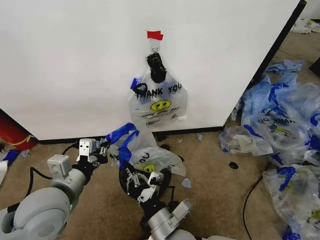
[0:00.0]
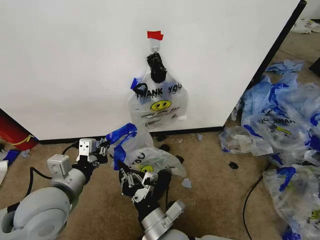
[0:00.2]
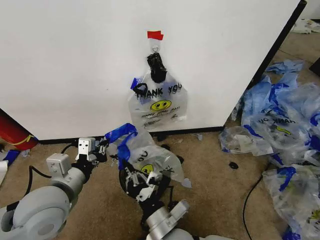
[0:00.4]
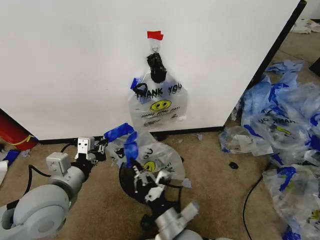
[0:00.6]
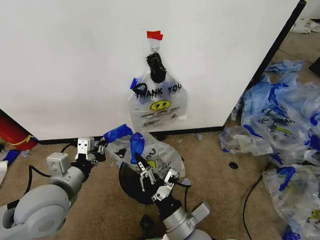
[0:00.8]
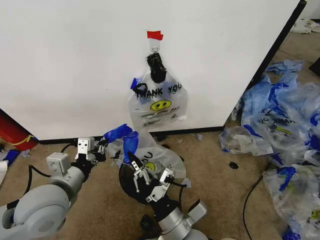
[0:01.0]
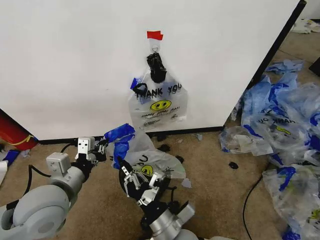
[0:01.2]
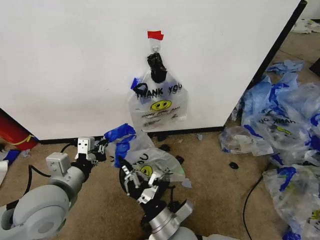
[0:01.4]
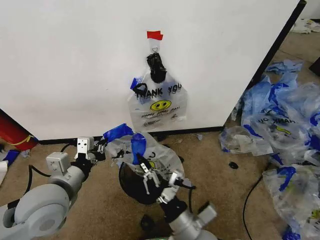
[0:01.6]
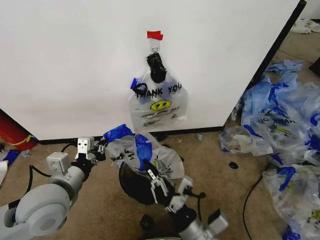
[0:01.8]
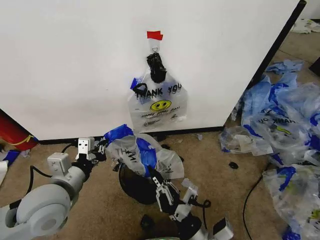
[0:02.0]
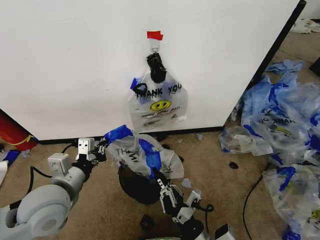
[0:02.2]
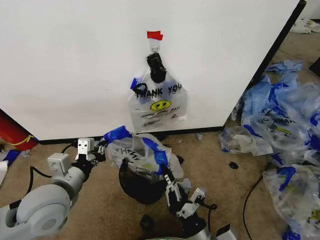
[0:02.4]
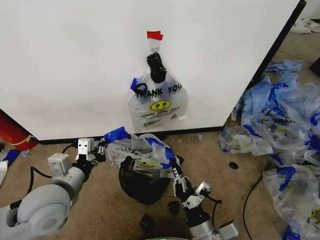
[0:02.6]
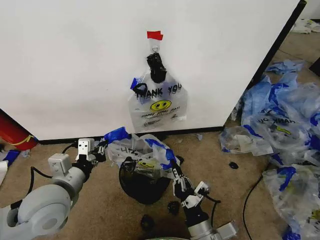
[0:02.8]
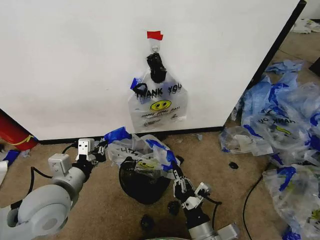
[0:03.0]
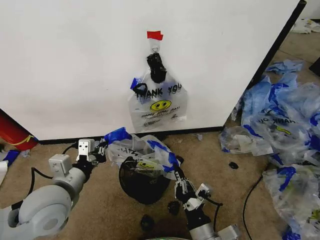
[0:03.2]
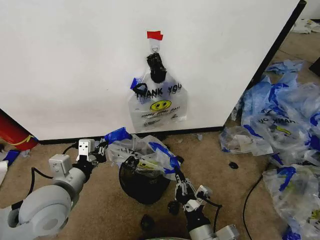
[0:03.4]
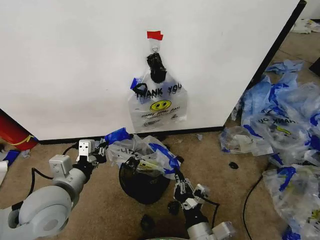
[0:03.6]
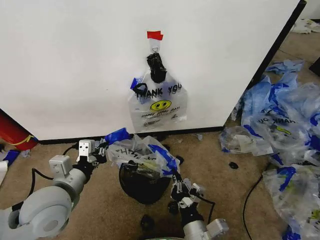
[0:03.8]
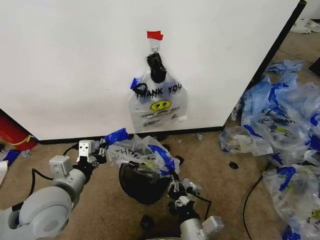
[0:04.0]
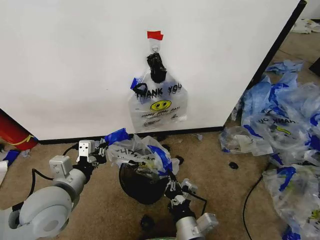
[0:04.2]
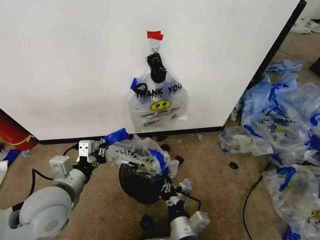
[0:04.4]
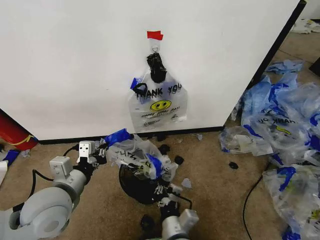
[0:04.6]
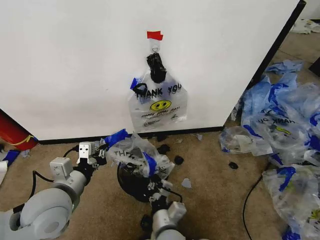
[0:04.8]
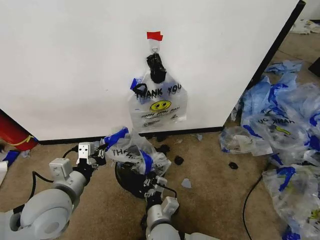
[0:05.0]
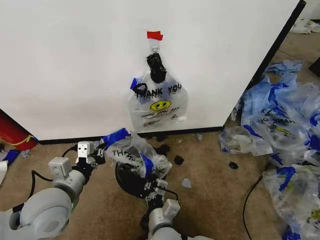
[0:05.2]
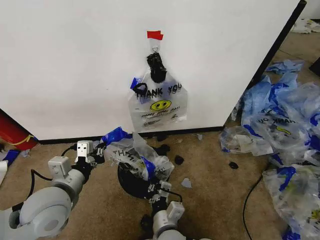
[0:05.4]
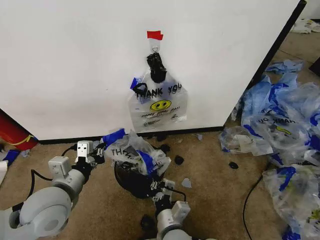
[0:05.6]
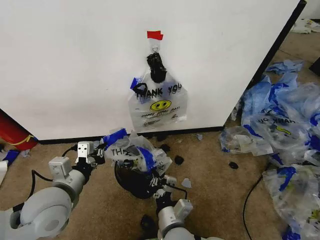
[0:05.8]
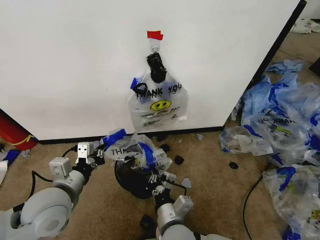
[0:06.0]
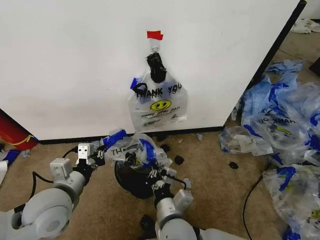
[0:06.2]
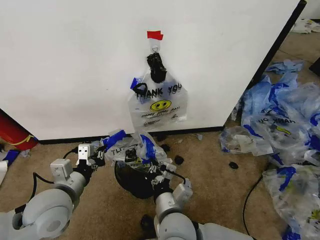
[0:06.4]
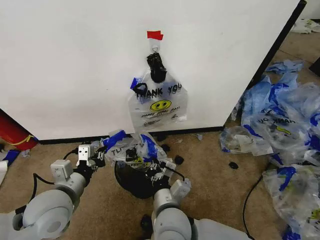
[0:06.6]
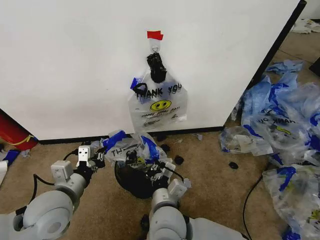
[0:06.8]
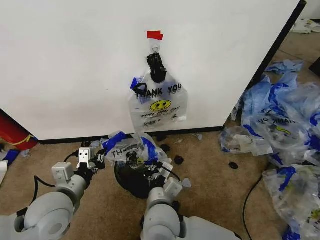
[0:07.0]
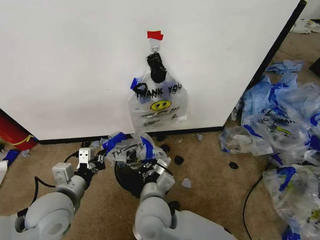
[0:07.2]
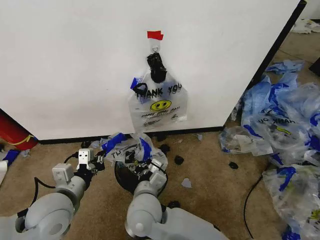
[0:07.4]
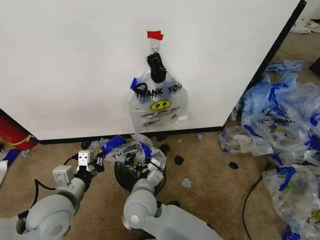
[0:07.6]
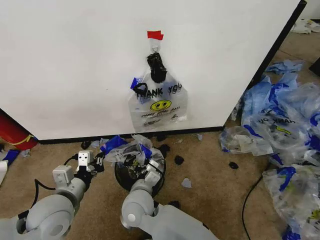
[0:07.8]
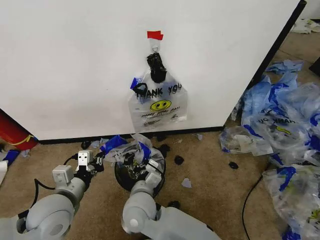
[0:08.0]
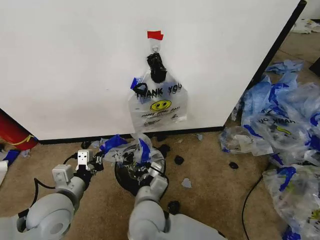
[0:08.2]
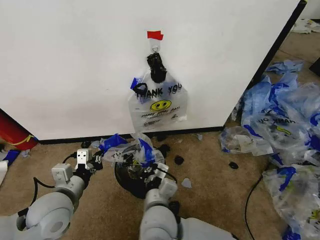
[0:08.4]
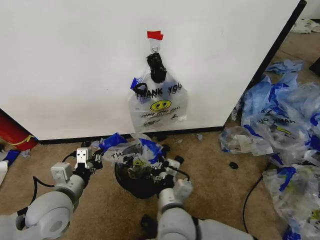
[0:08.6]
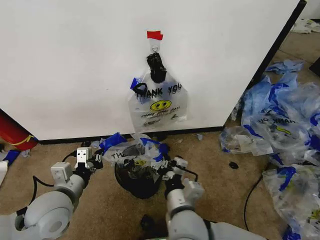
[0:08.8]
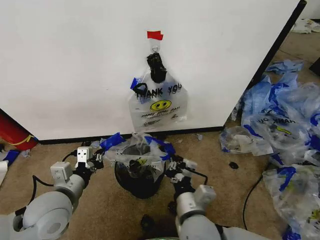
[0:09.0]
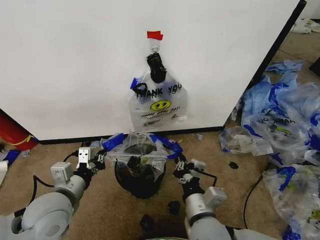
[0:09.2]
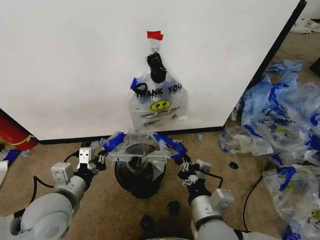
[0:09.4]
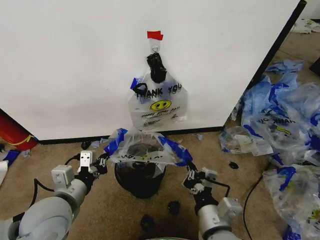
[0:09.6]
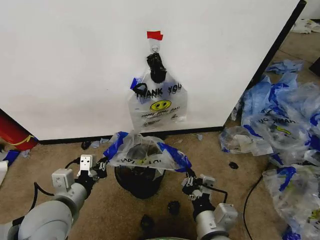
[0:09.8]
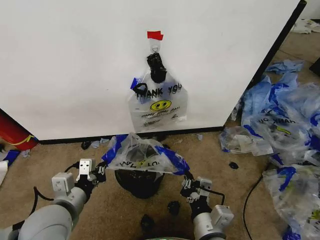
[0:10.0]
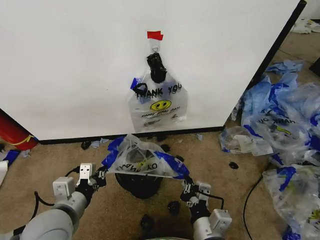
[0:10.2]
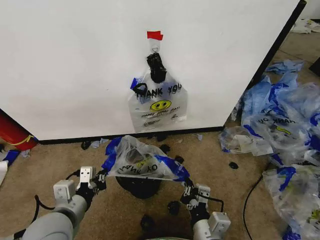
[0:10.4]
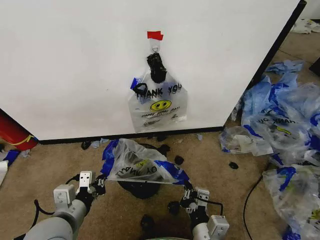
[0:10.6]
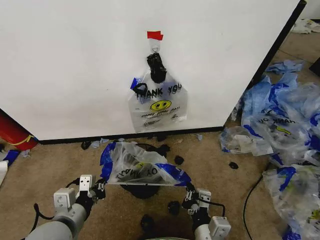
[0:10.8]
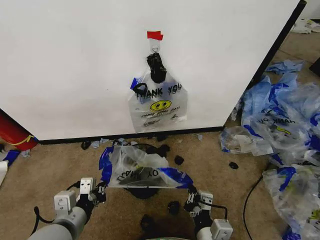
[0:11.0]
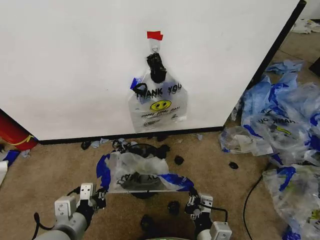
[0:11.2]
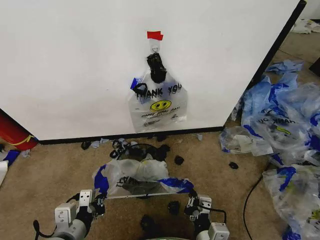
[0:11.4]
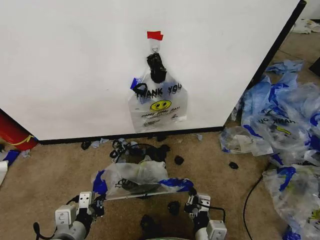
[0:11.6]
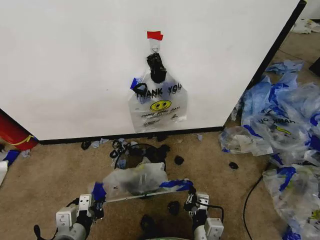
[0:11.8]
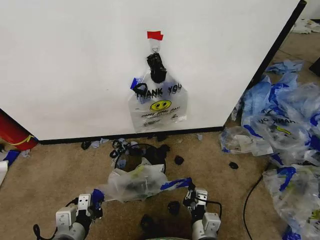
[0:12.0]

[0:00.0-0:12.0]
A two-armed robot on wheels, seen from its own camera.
Task of the whole recording: Pick up the garbage bag from the wall and place it over the trash bin.
0:00.0 to 0:01.6: There are only small adjustments of the grippers.
0:01.6 to 0:03.0: The right gripper changes place by about 5 cm.
0:03.0 to 0:04.4: The right gripper goes some 5 cm to the left.
0:06.0 to 0:07.6: The right gripper travels to the left and forward by approximately 15 cm.
0:07.6 to 0:09.0: The right gripper goes approximately 15 cm to the right and backward.
0:09.0 to 0:10.4: The left gripper moves about 5 cm, while the right gripper shifts roughly 5 cm backward.
0:10.4 to 0:12.0: Both grippers travel together downward, some 5 cm.

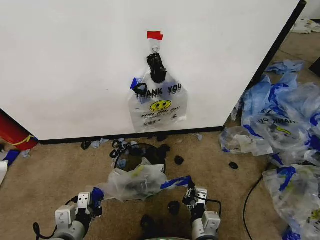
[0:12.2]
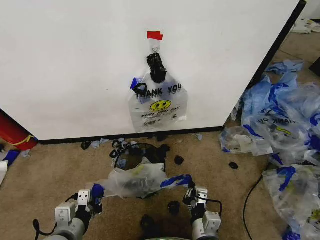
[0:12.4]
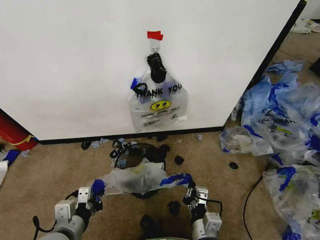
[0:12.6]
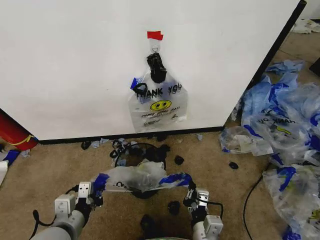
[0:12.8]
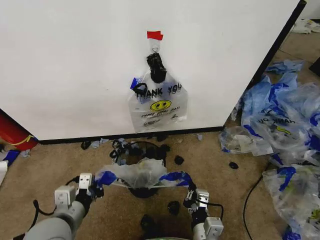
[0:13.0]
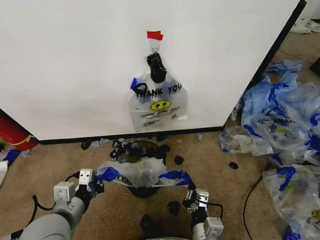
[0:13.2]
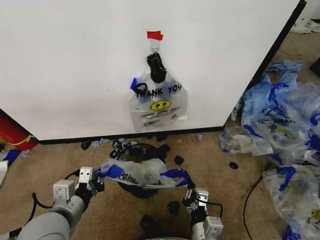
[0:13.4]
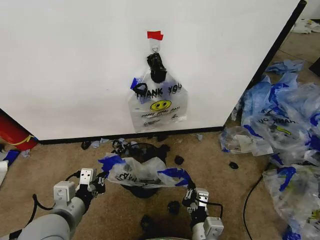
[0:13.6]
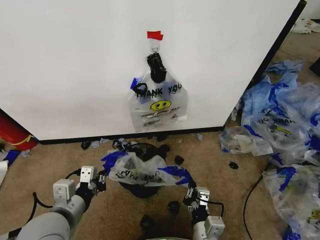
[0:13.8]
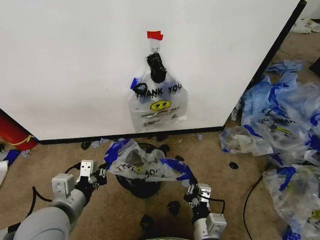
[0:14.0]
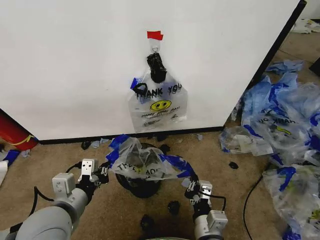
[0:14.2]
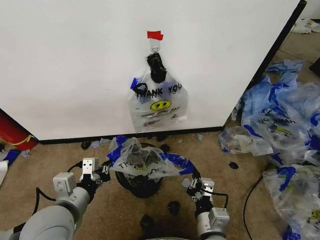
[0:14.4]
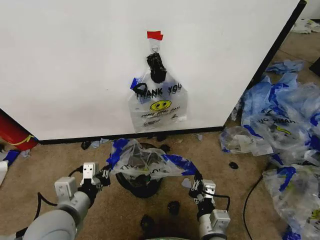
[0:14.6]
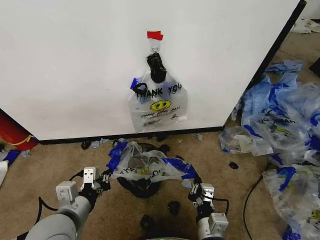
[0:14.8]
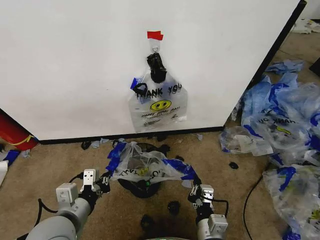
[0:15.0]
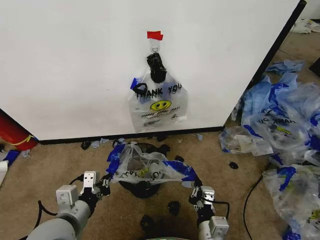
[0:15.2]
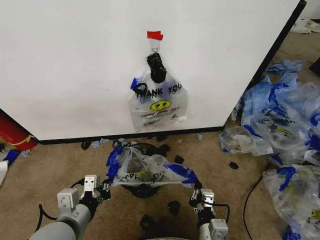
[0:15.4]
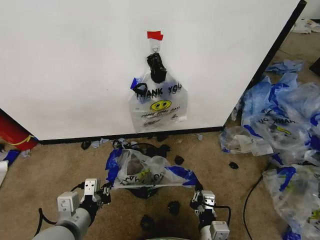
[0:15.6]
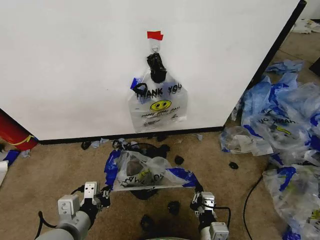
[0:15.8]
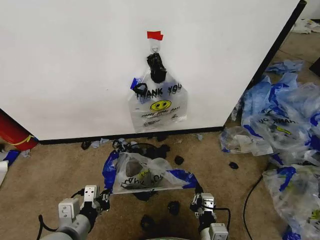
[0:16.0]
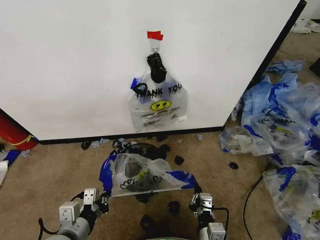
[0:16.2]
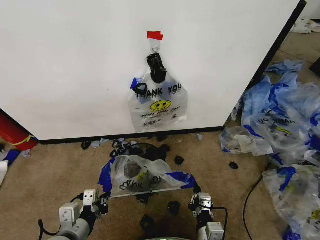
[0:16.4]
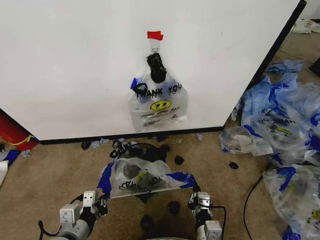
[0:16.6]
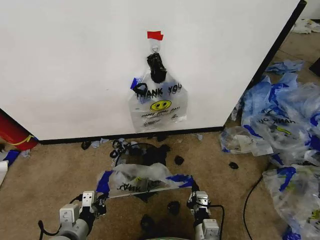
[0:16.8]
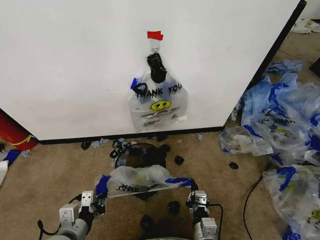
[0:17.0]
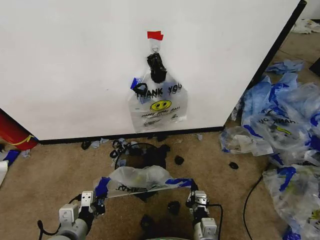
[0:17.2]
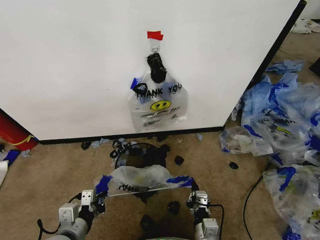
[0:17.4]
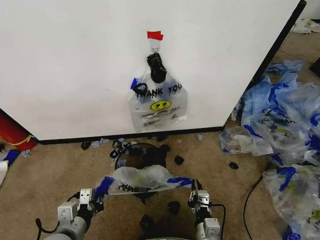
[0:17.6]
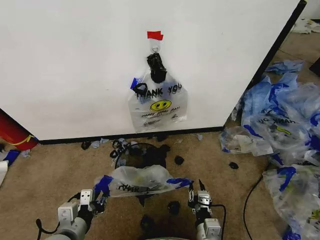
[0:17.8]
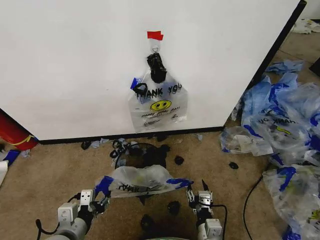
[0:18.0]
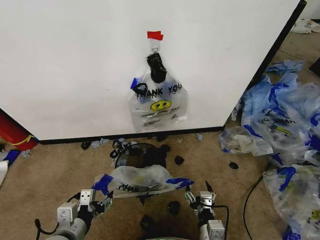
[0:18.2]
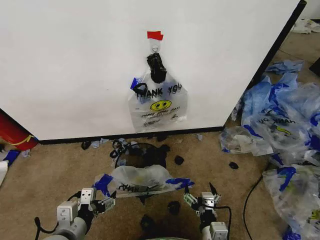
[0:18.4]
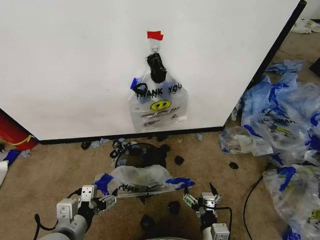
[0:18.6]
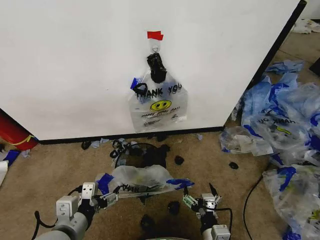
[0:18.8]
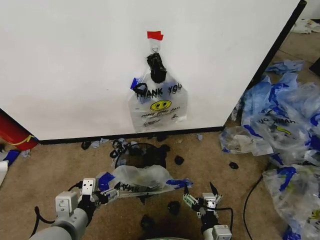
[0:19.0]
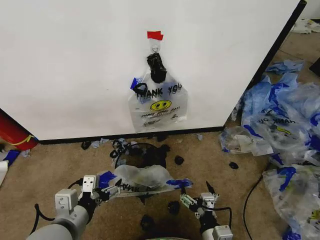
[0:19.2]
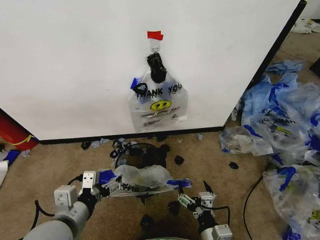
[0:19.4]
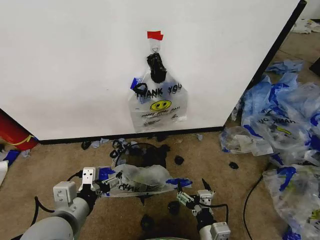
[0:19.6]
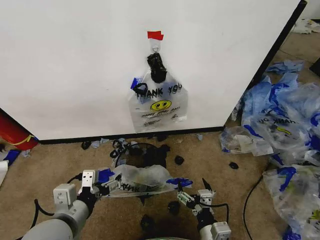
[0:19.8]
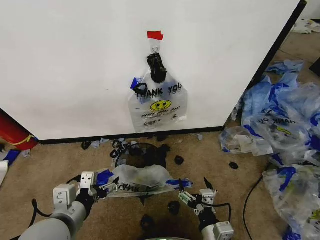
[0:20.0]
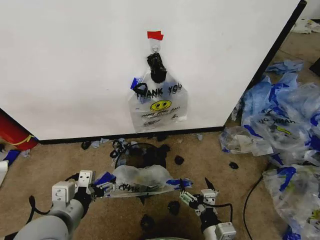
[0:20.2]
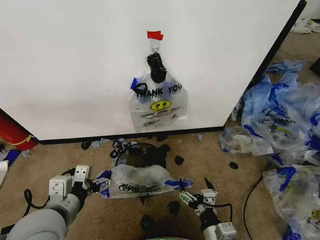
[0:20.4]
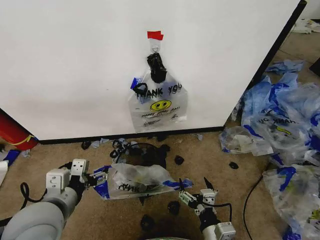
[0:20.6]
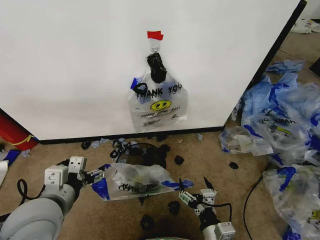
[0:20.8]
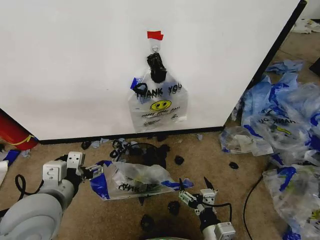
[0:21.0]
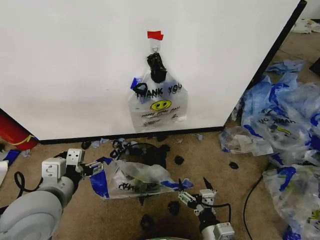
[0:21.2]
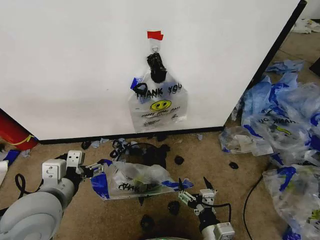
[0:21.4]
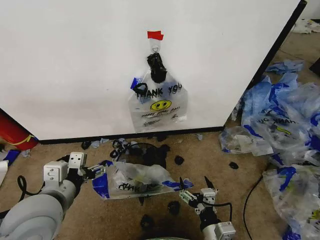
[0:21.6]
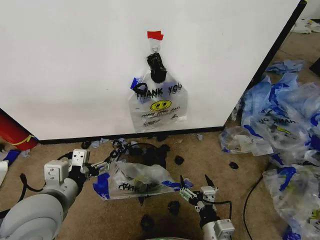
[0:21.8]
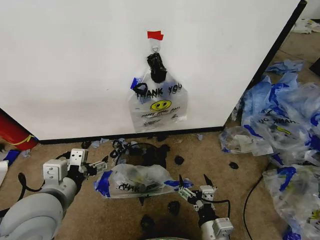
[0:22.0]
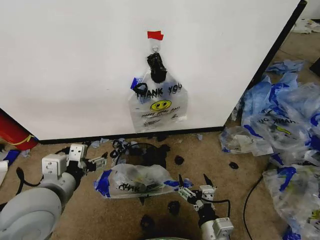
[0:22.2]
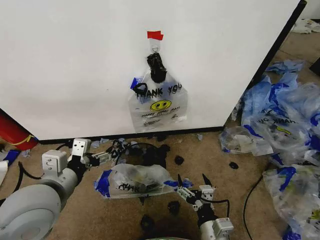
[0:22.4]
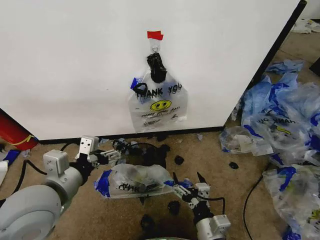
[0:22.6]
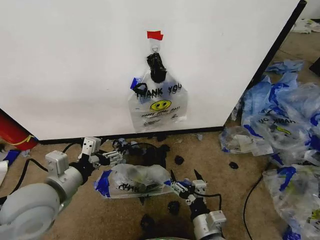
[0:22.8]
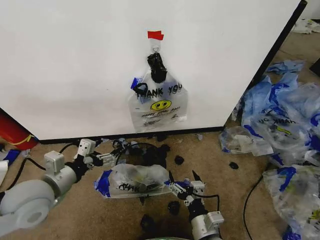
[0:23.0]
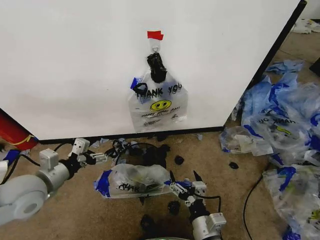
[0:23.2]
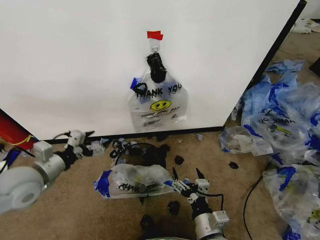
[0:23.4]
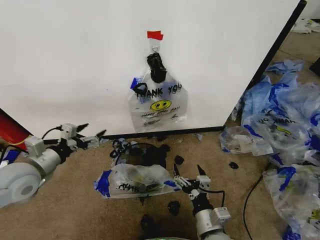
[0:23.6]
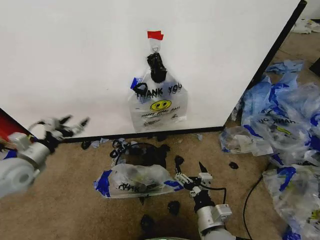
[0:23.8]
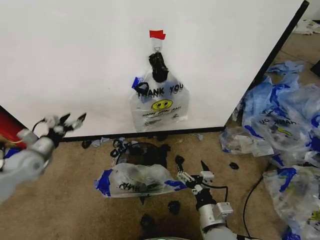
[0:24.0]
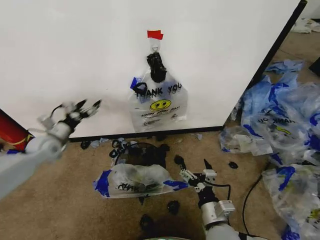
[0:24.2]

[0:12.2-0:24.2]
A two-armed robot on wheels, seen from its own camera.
Task of the whole recording: Pick up the garbage bag from the wall and place it over the trash bin.
0:12.2 to 0:13.8: The left gripper heads upward, covering roughly 5 cm.
0:13.8 to 0:15.2: There are only small adjustments of the grippers.
0:15.2 to 0:16.6: The left gripper travels downward by approximately 5 cm.
0:16.6 to 0:18.2: The right gripper opens; the left gripper opens up.
0:18.2 to 0:19.8: The left gripper travels upward by about 5 cm.
0:19.8 to 0:21.2: The left gripper heads upward, covering some 5 cm.
0:22.6 to 0:24.2: The left gripper goes some 30 cm forward and to the left.
